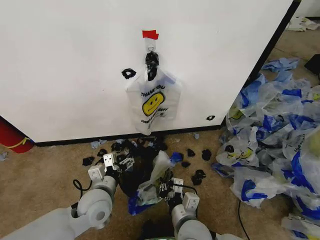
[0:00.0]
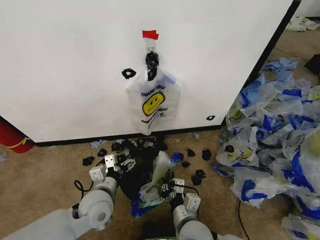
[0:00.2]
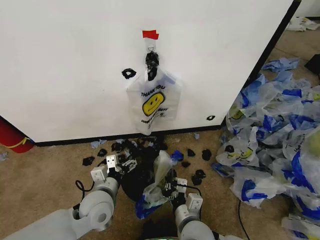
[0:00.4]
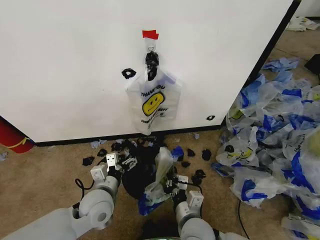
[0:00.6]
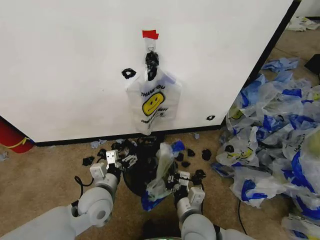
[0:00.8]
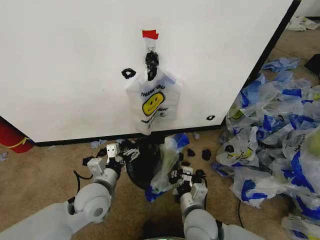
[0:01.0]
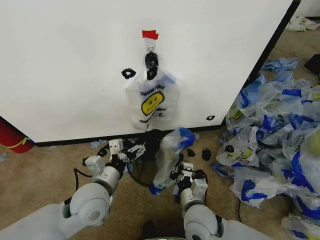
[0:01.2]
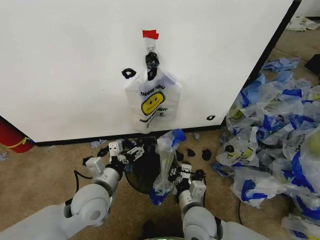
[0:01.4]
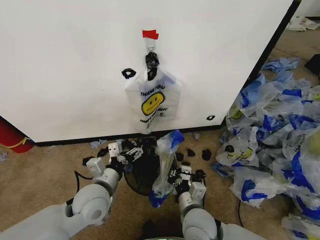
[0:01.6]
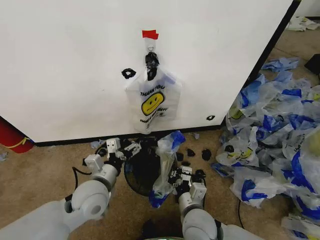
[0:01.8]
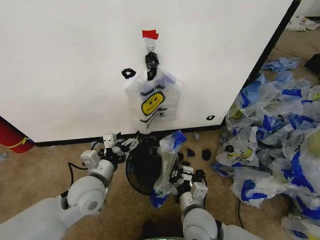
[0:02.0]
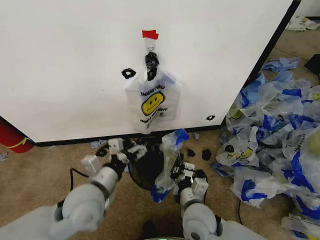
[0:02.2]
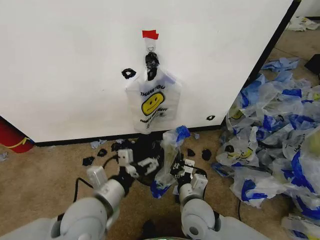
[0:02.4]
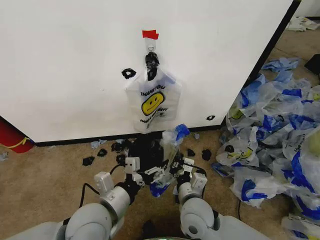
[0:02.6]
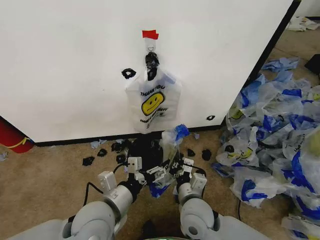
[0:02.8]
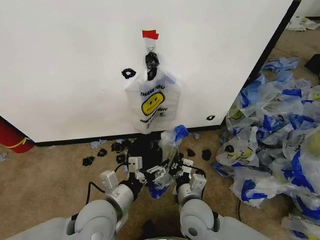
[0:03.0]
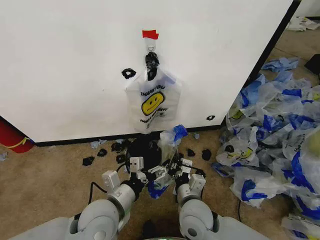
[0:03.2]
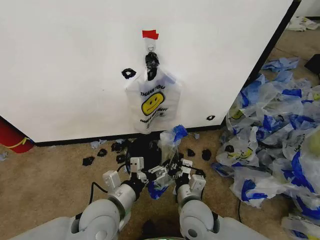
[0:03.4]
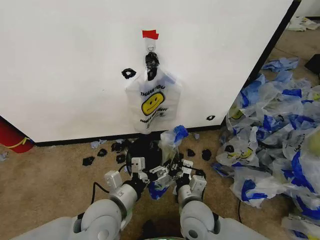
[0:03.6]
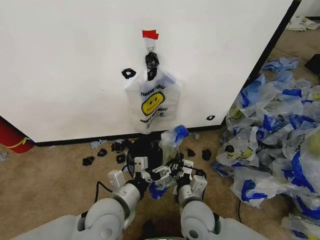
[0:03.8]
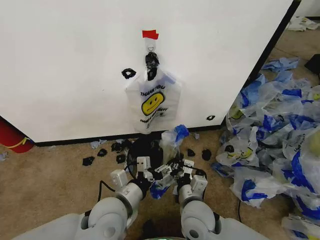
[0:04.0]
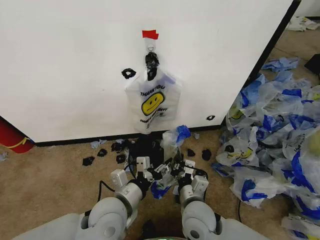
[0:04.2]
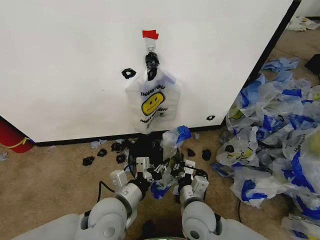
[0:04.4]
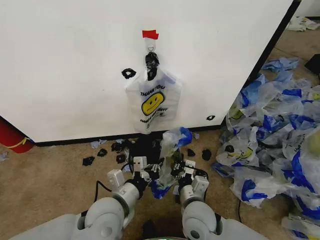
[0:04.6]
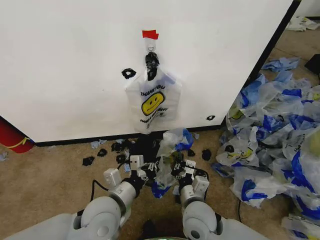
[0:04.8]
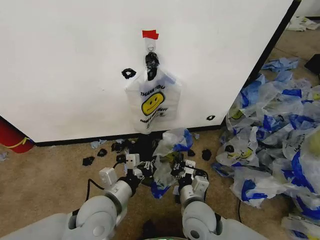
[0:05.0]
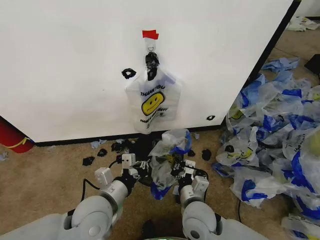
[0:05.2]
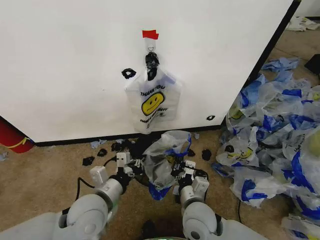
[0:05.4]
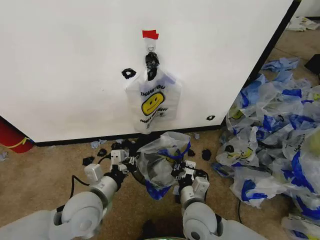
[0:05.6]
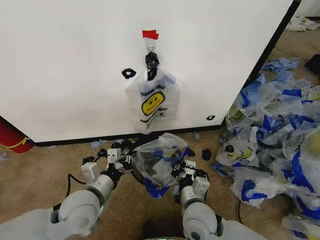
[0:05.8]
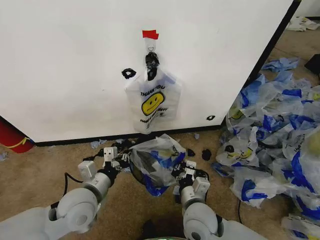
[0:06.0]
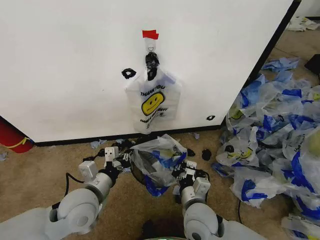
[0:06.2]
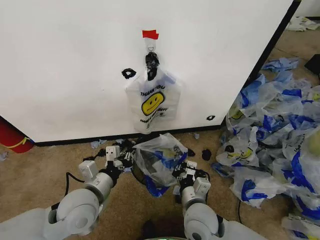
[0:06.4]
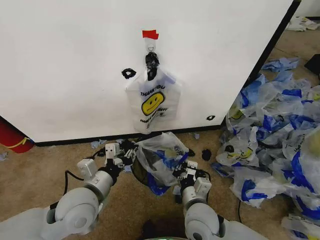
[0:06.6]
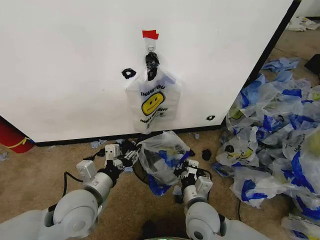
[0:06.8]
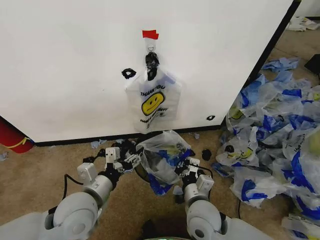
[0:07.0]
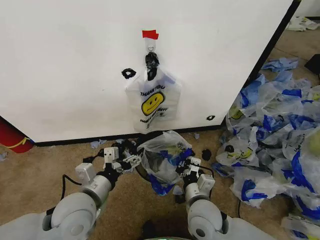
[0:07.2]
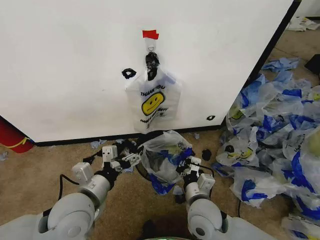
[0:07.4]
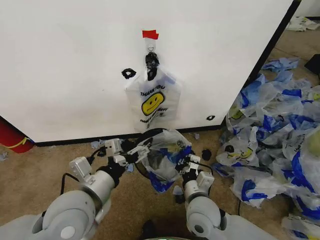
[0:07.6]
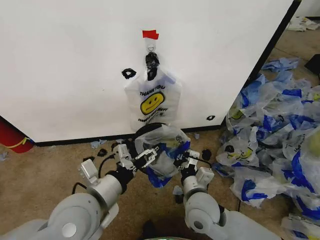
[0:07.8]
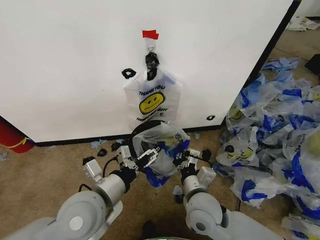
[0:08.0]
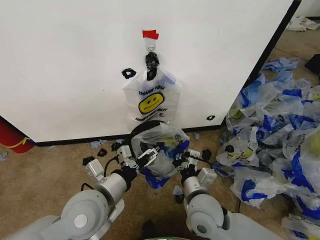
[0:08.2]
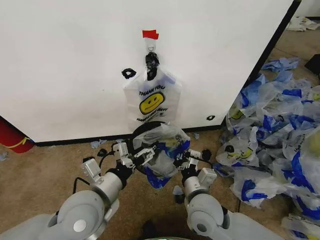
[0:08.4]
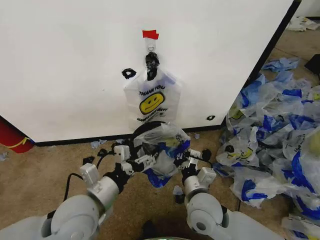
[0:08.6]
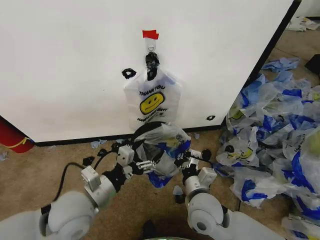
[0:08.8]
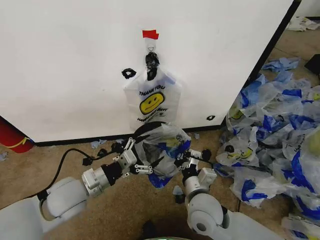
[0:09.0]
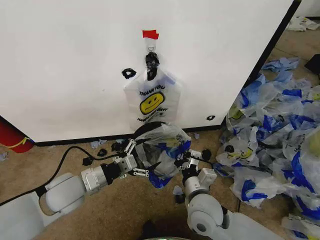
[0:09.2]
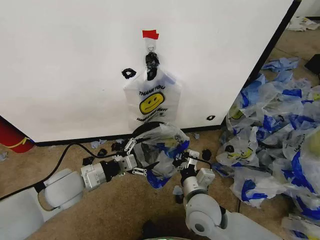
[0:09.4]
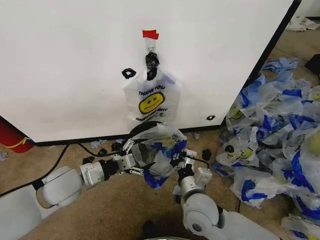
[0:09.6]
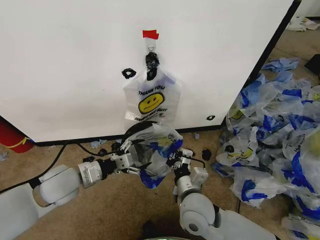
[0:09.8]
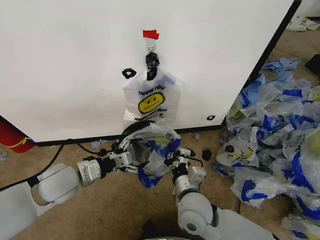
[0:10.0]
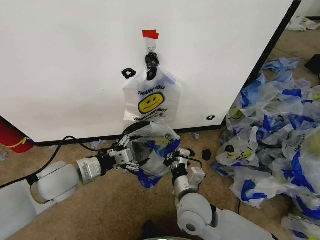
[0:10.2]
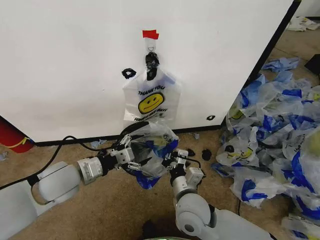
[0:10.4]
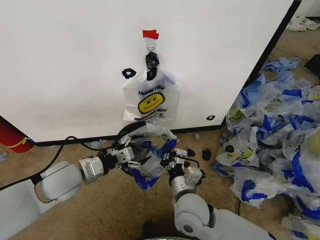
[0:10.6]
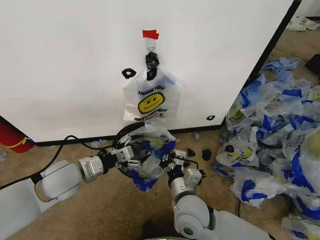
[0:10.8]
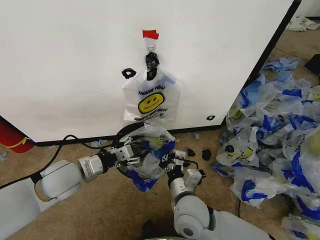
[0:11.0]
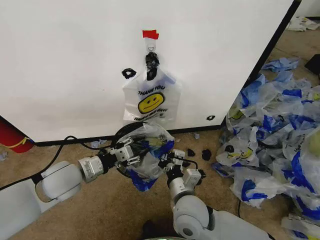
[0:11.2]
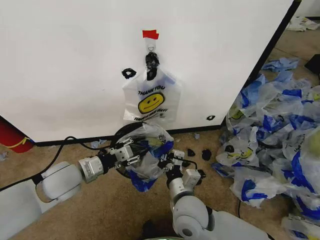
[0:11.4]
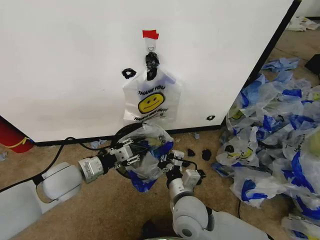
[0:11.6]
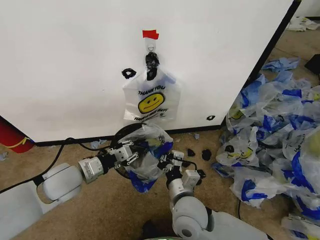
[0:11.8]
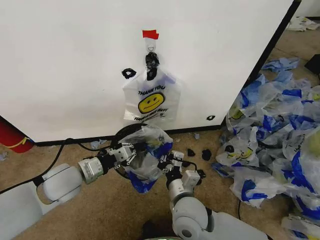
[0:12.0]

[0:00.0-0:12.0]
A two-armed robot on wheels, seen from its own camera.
Task of the whole recording: Pick up the garbage bag from the wall and place it over the trash bin.
0:01.6 to 0:03.0: The left gripper moves about 5 cm.
0:03.0 to 0:04.4: The left gripper closes its fingers.
0:04.4 to 0:06.0: The left gripper shifts about 10 cm to the left.
0:06.0 to 0:07.6: The left gripper goes about 5 cm upward, and opens.
0:07.6 to 0:09.0: The left gripper heads forward, downward and to the left, covering approximately 10 cm.
0:10.4 to 0:12.0: The left gripper closes.

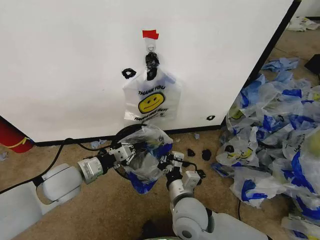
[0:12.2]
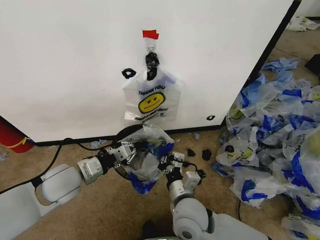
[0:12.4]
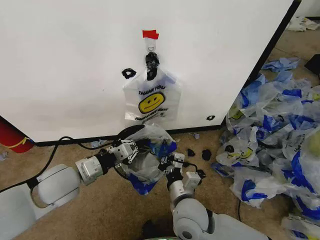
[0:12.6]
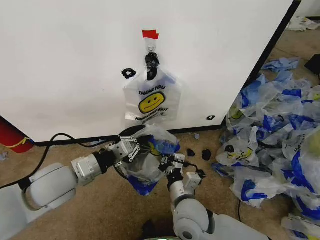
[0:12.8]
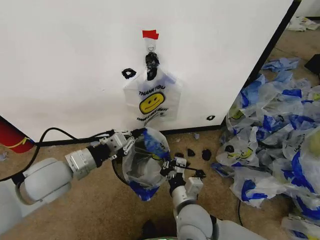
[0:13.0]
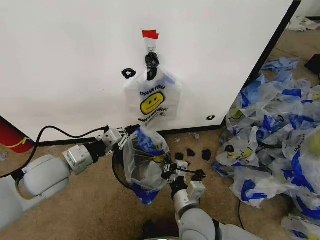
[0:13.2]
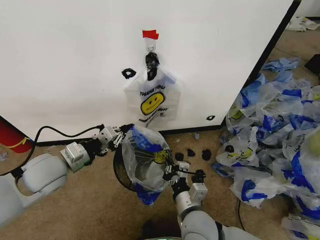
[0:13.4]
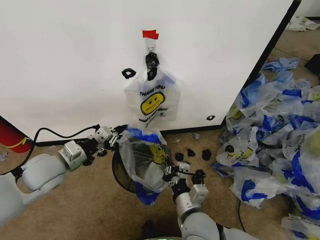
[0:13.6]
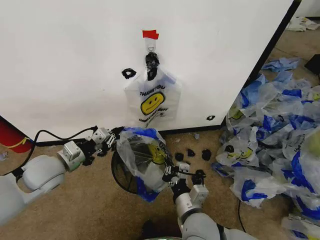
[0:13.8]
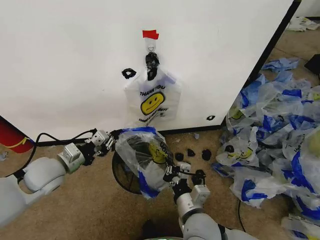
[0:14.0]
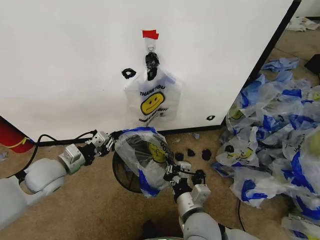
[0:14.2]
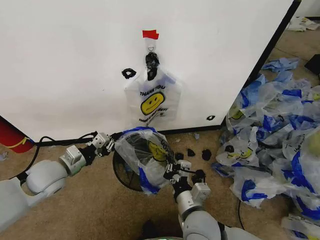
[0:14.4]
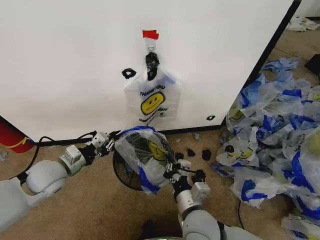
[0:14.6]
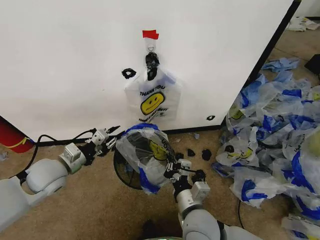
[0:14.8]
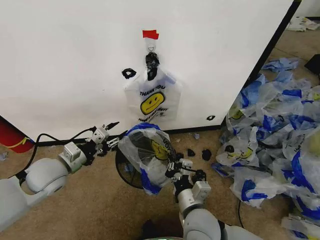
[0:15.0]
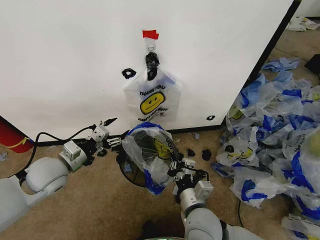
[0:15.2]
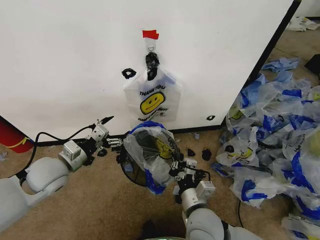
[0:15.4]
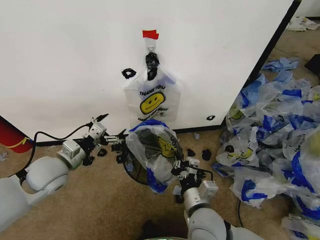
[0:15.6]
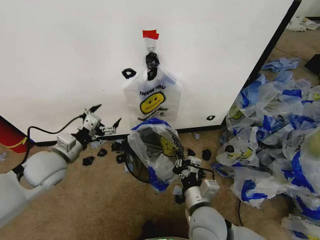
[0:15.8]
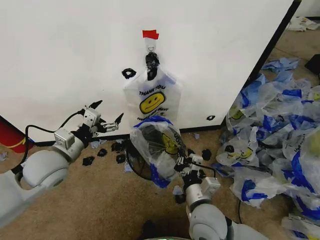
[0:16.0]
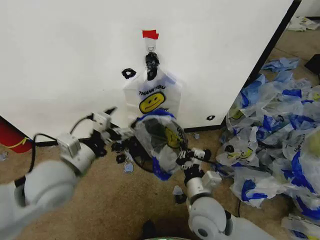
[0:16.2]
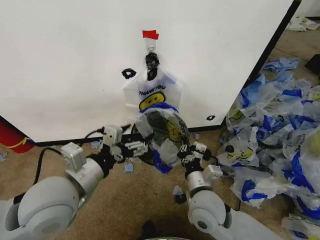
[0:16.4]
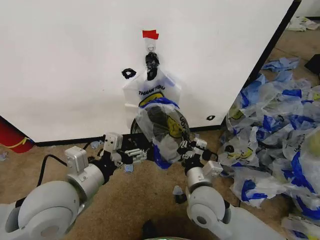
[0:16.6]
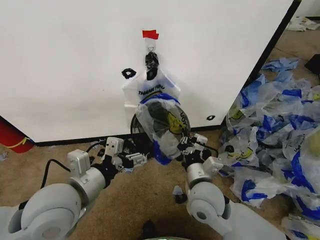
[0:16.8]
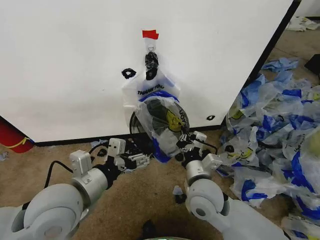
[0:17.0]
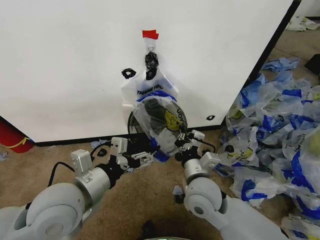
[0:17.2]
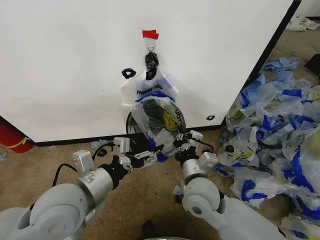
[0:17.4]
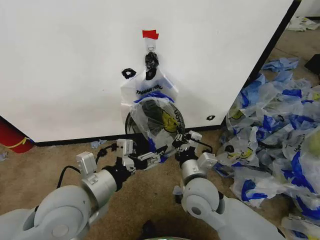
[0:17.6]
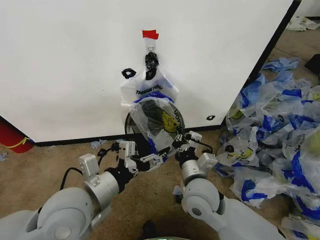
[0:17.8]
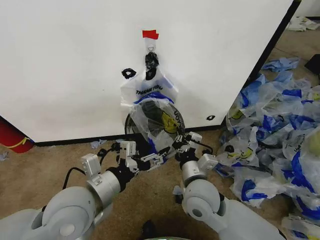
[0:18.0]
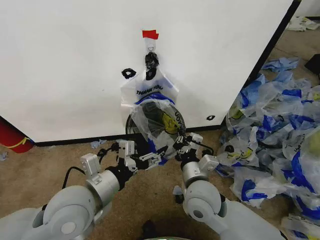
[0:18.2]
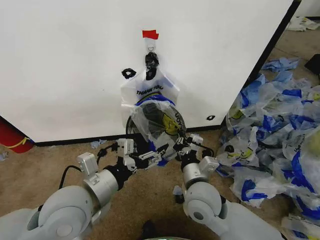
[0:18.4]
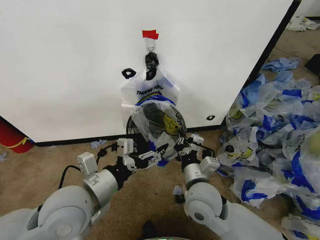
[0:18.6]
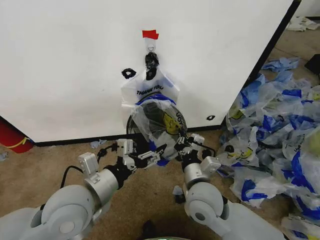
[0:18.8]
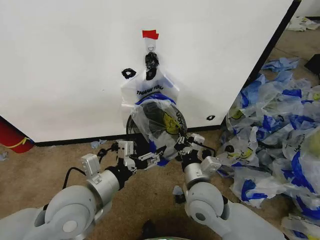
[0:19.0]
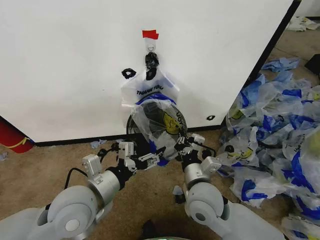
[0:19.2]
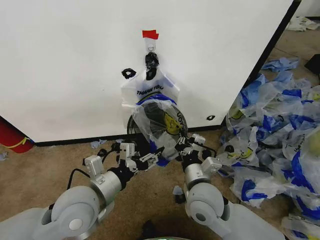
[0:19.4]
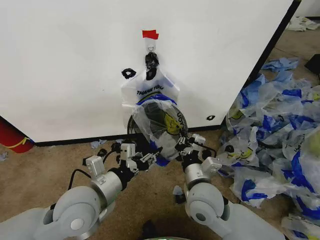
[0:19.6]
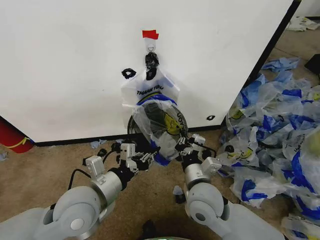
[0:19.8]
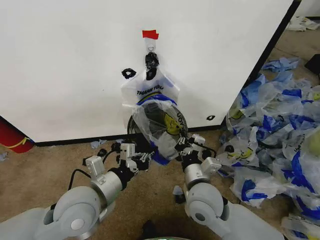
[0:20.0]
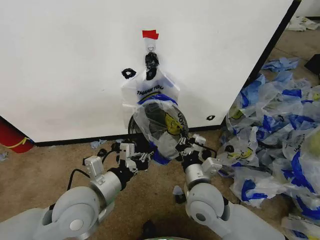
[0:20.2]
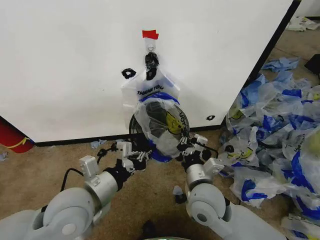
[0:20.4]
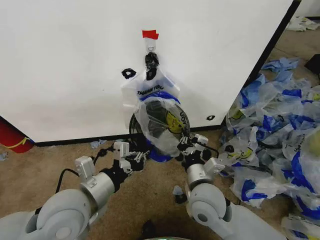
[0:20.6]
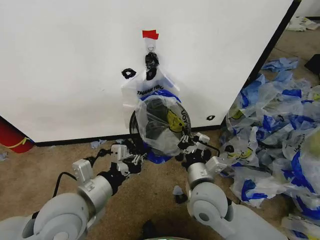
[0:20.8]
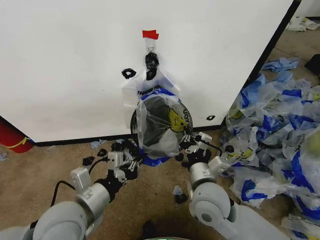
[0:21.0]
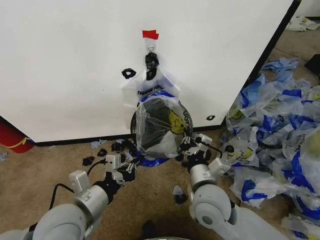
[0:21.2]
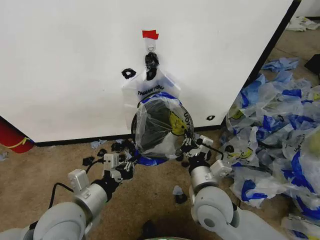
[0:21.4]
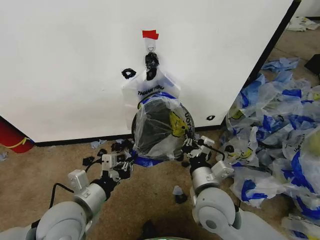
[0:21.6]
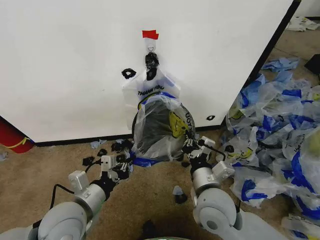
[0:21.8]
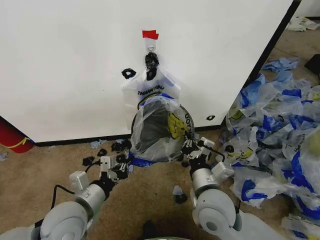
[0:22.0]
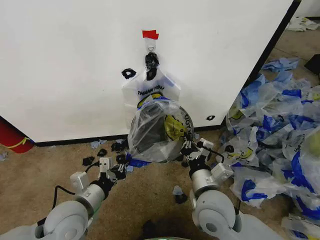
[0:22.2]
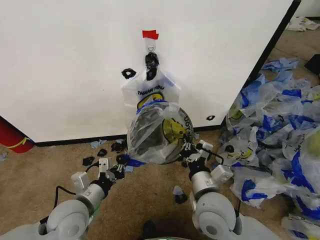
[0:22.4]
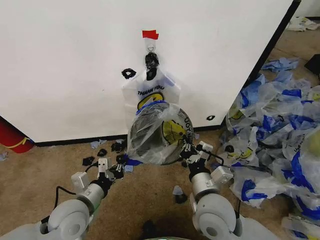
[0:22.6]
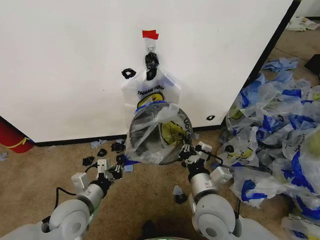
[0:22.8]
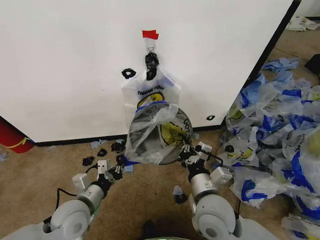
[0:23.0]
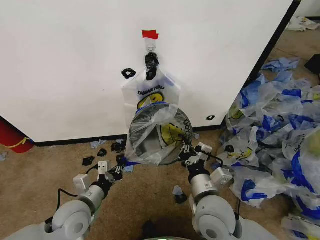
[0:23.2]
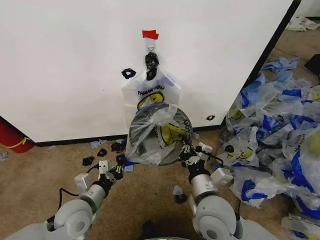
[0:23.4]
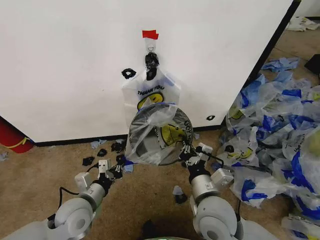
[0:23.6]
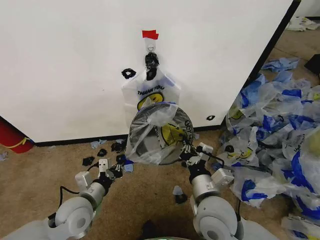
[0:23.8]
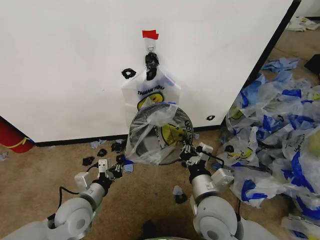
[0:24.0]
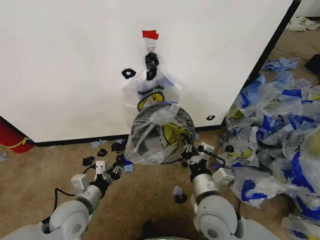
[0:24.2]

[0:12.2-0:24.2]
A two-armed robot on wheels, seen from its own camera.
Task of the whole recording: Pick up the garbage bag from the wall and place it over the trash bin.
0:12.2 to 0:13.8: The left gripper shifts about 5 cm to the left.
0:13.8 to 0:15.2: The left gripper opens its fingers.
0:15.2 to 0:16.6: The right gripper ends up approximately 5 cm from where it was; the left gripper shifts about 15 cm backward, to the right and upward.
0:18.2 to 0:19.8: The left gripper closes.
0:19.8 to 0:21.2: The grippers move only a little.
0:21.2 to 0:22.6: The left gripper moves downward, about 10 cm.
0:22.6 to 0:24.2: The grippers make only small movements.
